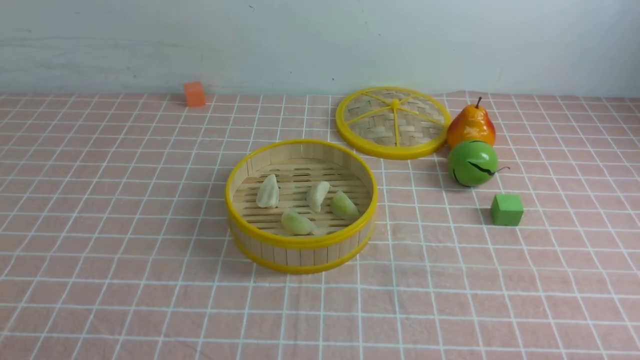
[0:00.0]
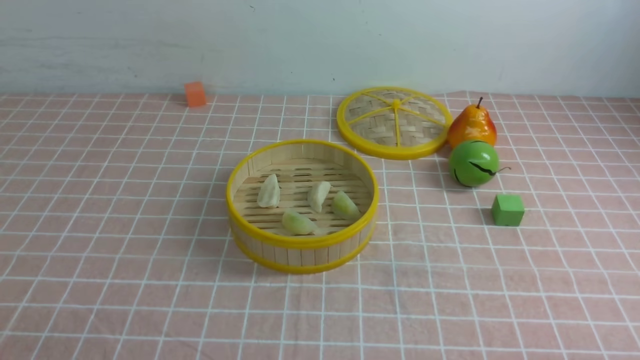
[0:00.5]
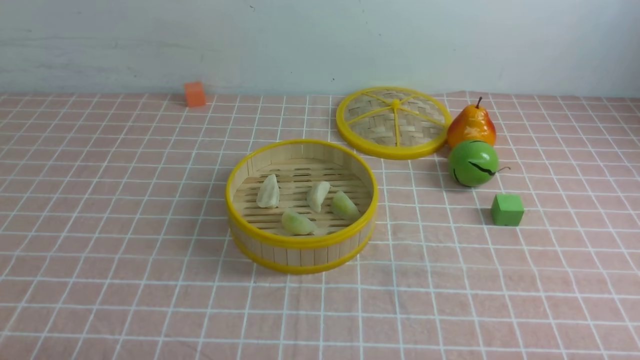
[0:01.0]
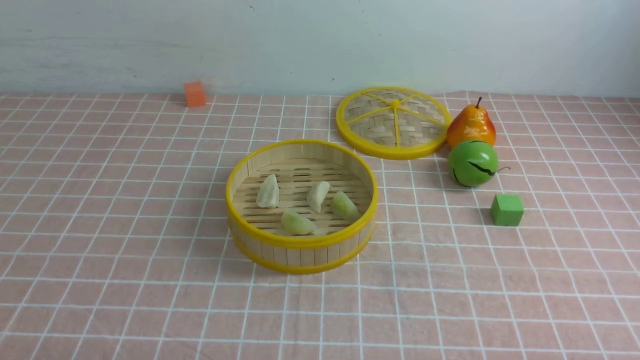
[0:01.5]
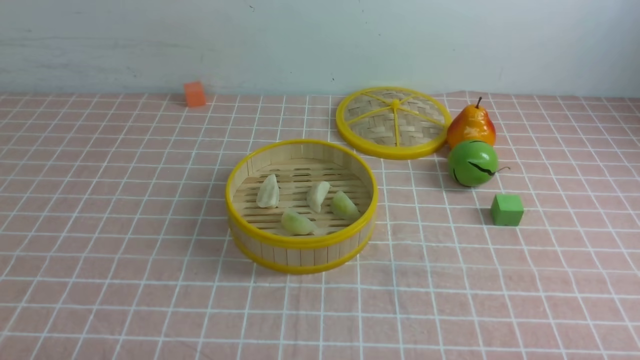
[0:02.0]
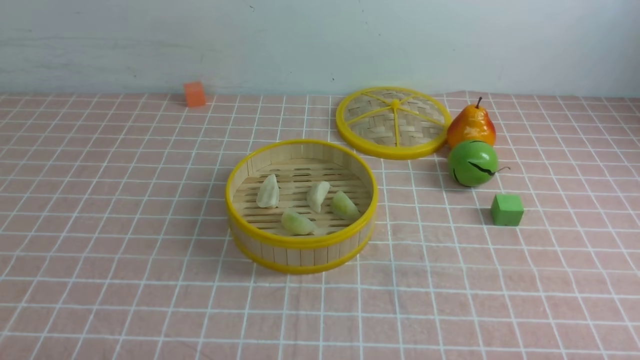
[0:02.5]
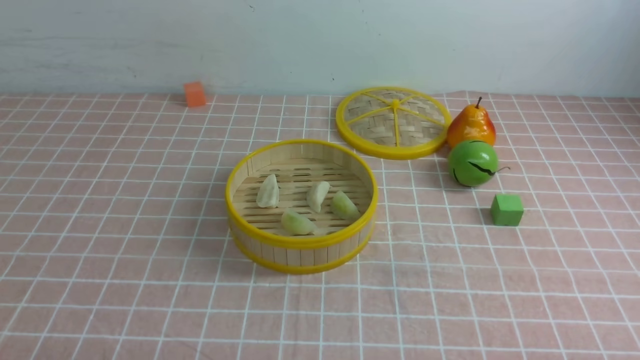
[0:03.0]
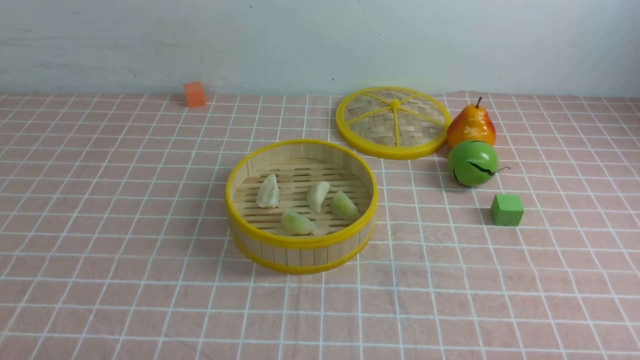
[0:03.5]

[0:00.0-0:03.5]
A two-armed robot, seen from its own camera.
Task of the whole recording: put the dumplings into the steamer on the table with the pink tablecloth.
0:02.0 to 0:03.5: The two grippers keep their place.

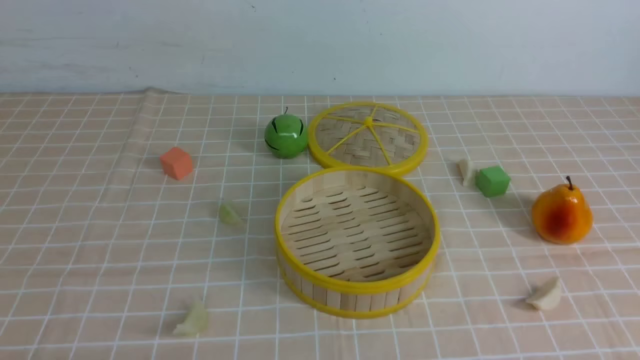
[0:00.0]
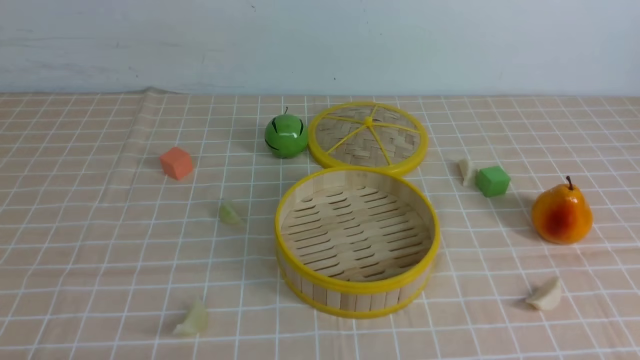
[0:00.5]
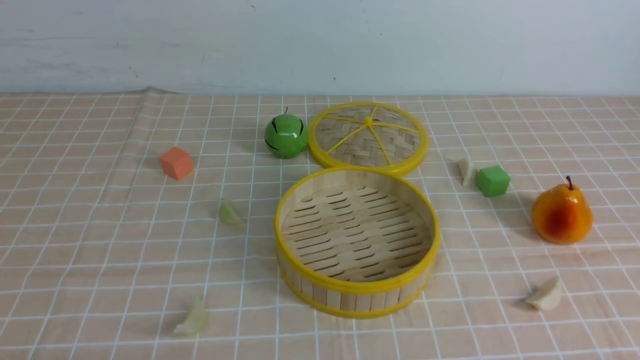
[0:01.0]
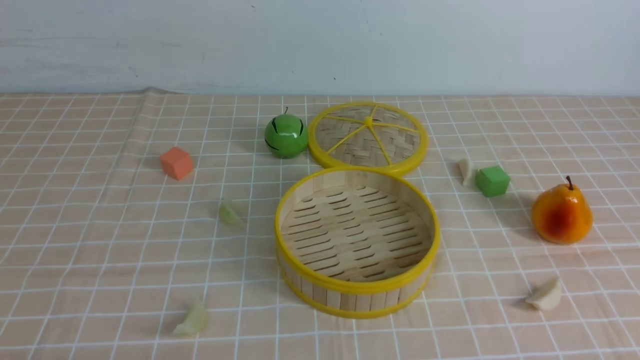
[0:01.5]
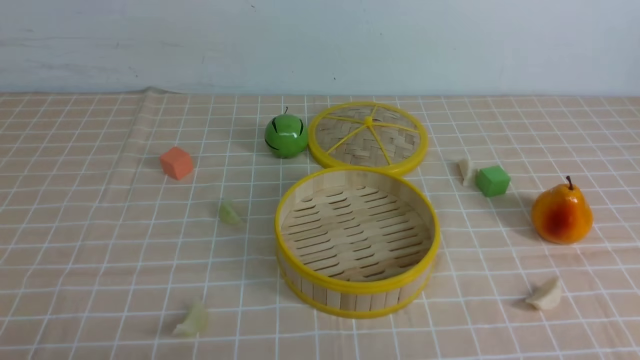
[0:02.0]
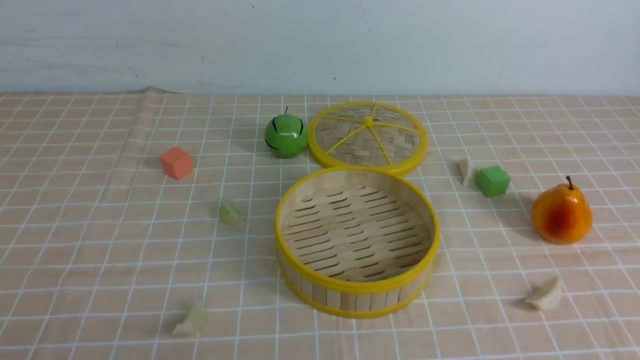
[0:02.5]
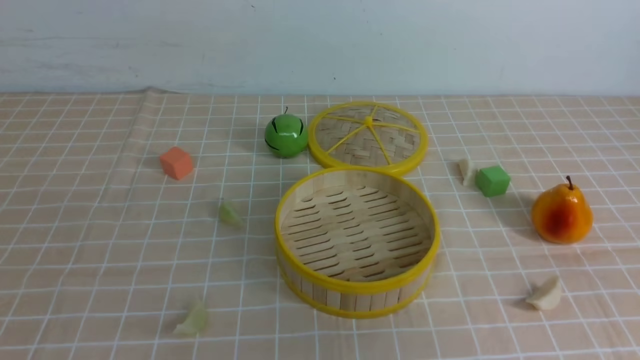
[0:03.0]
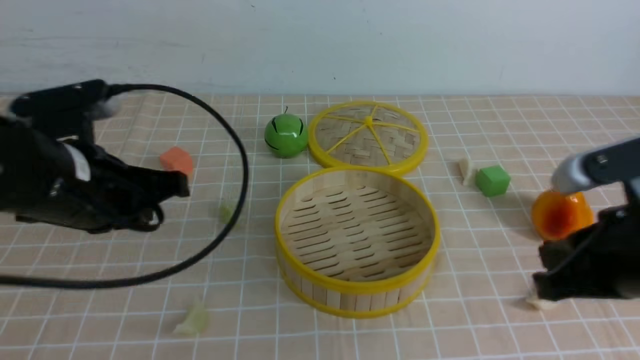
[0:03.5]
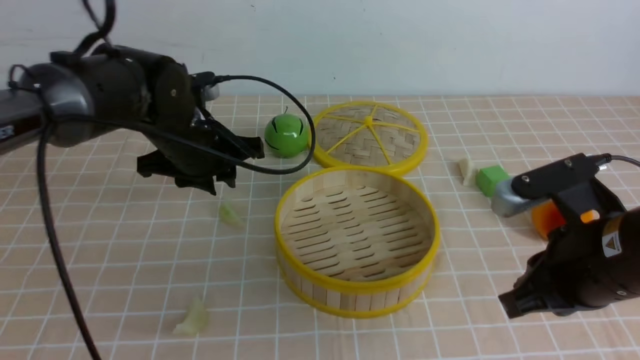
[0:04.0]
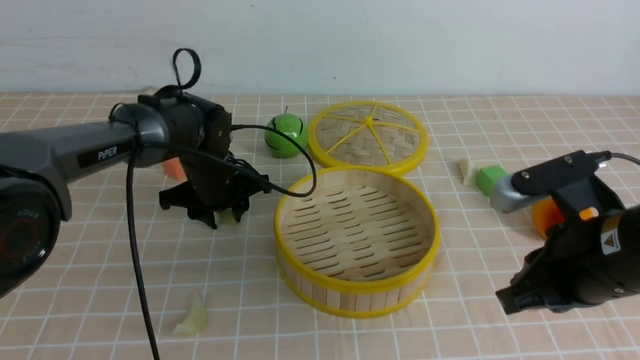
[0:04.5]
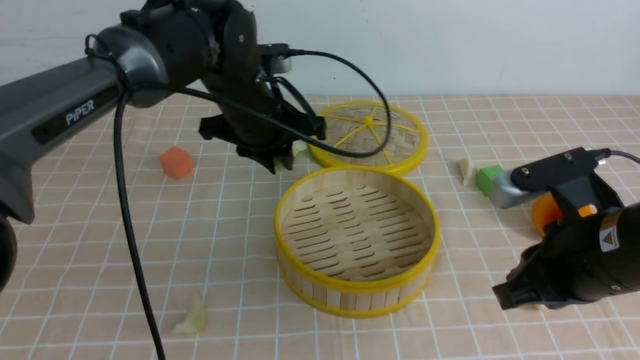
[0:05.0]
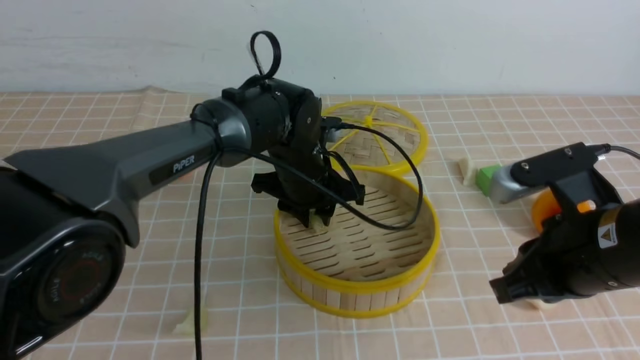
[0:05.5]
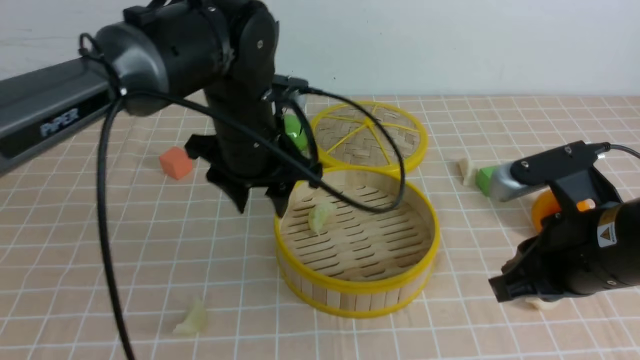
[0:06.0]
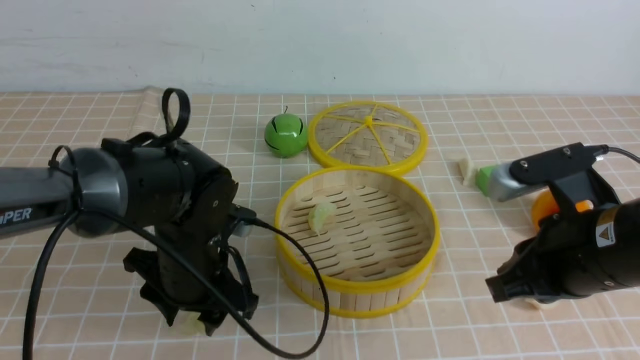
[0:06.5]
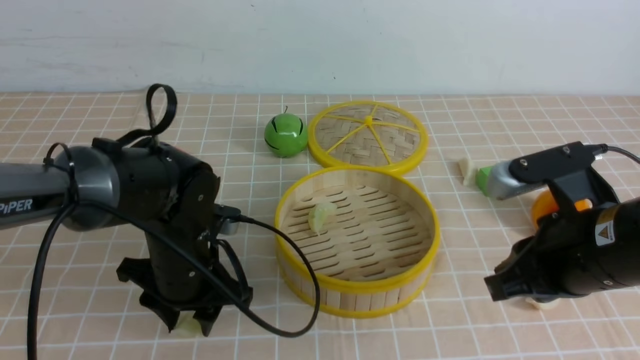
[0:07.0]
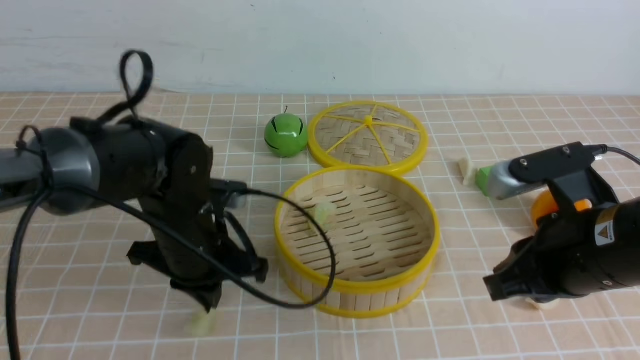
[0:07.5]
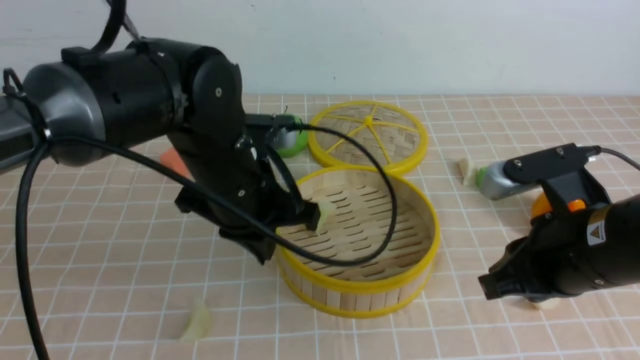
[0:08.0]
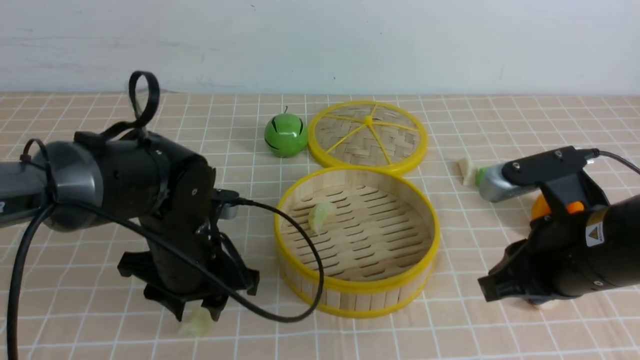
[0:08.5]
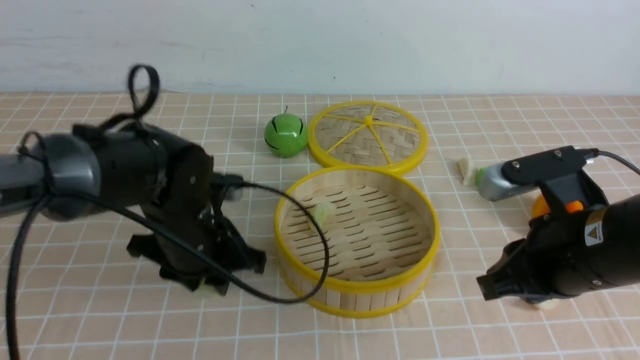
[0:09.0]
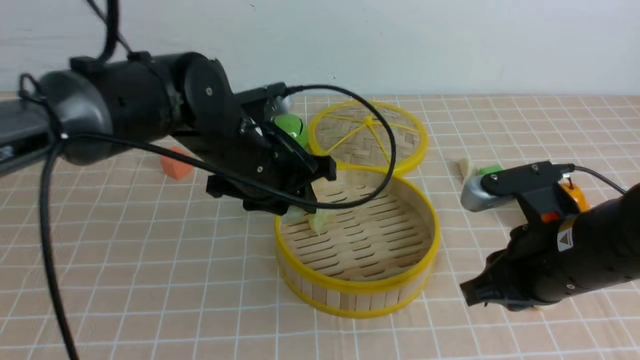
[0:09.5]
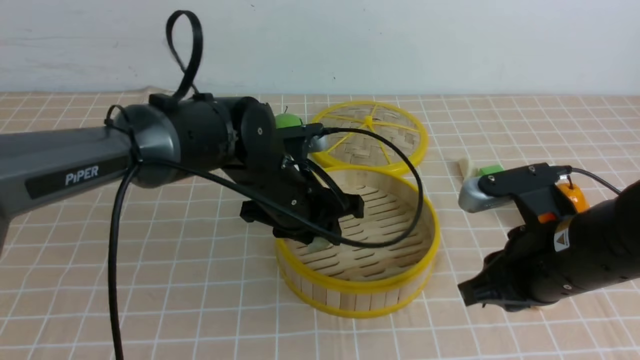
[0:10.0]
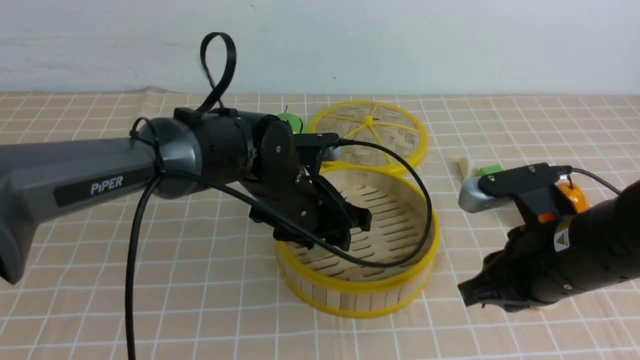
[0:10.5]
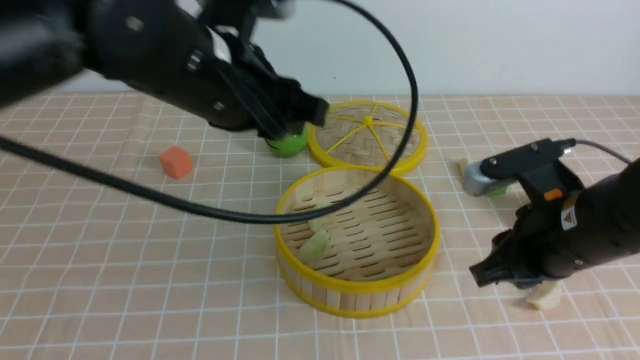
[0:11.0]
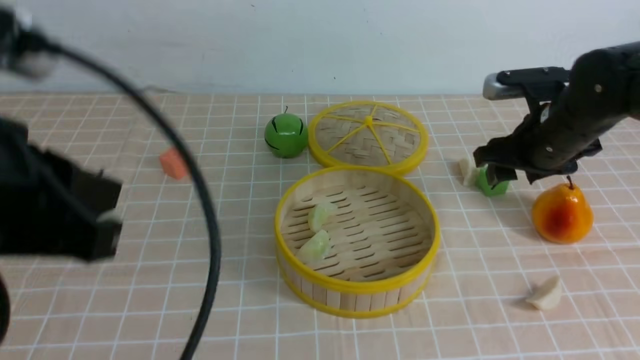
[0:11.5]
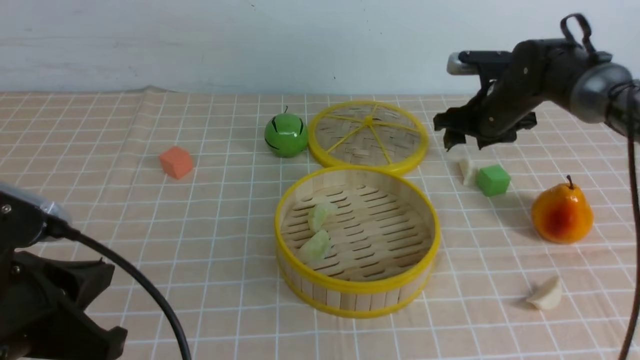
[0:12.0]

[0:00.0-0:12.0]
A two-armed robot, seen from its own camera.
Task of the whole recording: put the dumplings into the steamer on the table with the brown tablecloth.
Step, 0:00.0 to 0:04.5: use the left arm to grab a dumpling.
Step, 0:05.0 to 0:05.5: use the left arm to put the dumpling into the steamer.
Step, 0:06.0 to 0:08.5: use the left arm to grab a dumpling.
Step, 0:09.0 to 0:10.5: use the left arm to put the dumpling into the steamer.
0:02.0 to 0:04.0: The right gripper travels forward and to the left by about 20 cm, and closes its fingers; the left gripper goes some 35 cm forward, and closes, then reopens.
0:04.0 to 0:06.0: The left gripper is displaced to the right by some 5 cm, and opens.
0:06.0 to 0:08.0: The left gripper travels downward and back again, about 10 cm each way, and closes.
0:08.0 to 0:10.0: The left gripper moves approximately 5 cm, and opens.
0:10.0 to 0:12.0: The left gripper heads backward and to the left, covering roughly 30 cm, and closes its fingers, while the right gripper goes some 30 cm forward, and opens its fingers.

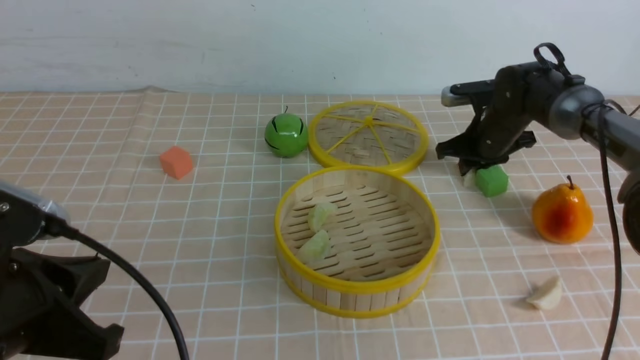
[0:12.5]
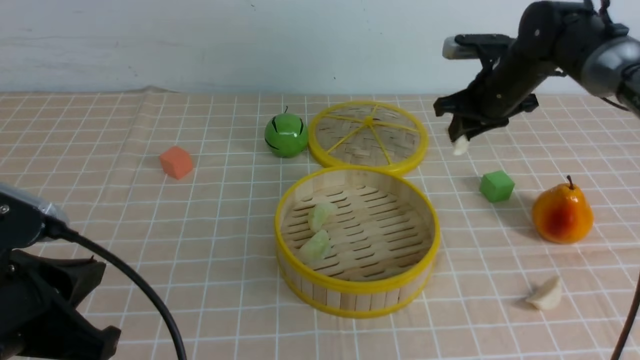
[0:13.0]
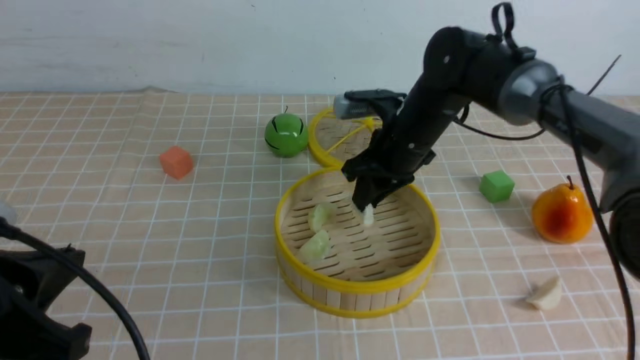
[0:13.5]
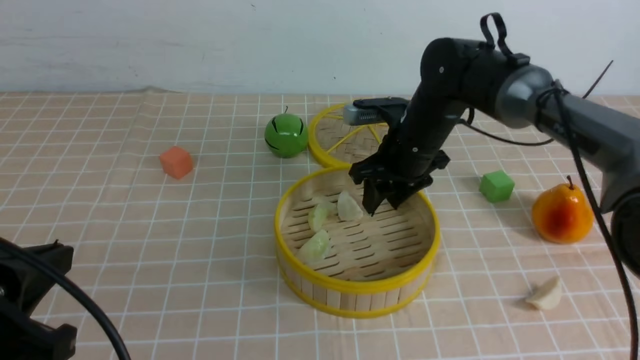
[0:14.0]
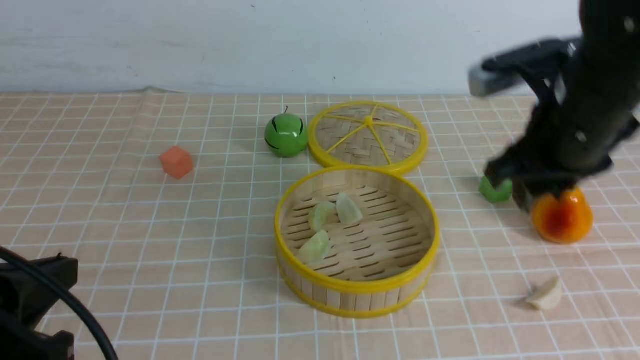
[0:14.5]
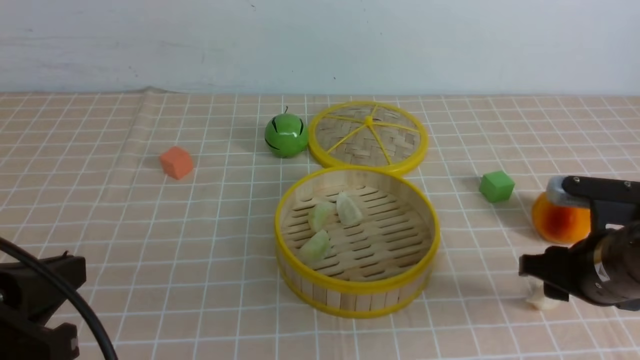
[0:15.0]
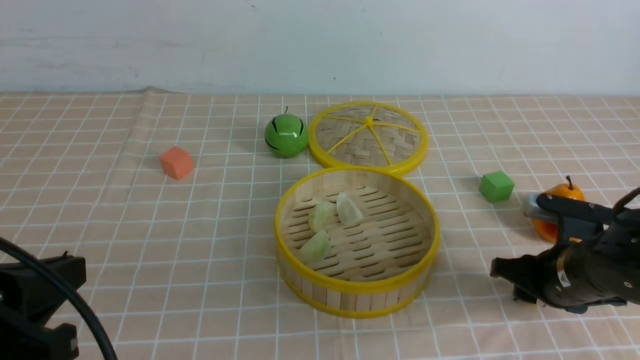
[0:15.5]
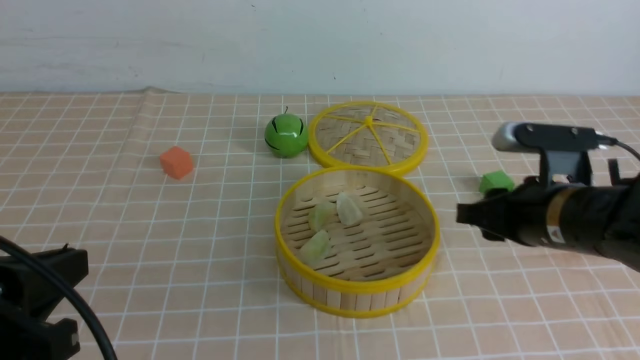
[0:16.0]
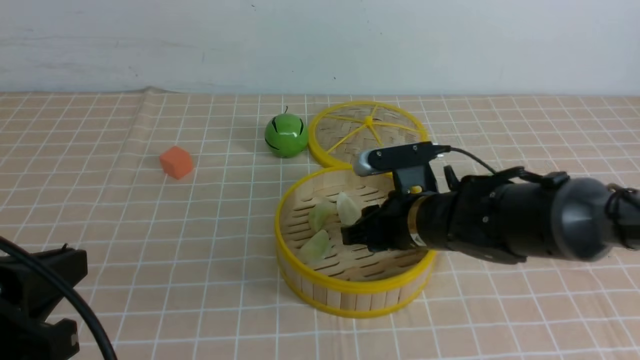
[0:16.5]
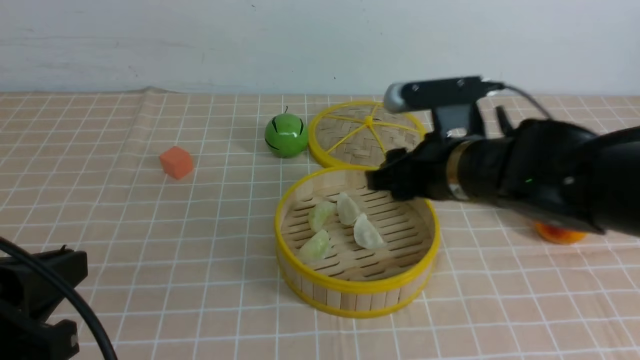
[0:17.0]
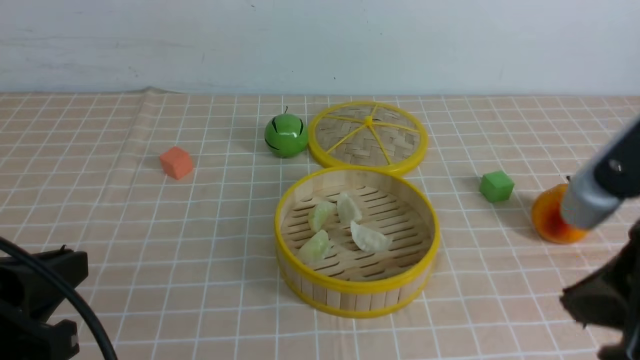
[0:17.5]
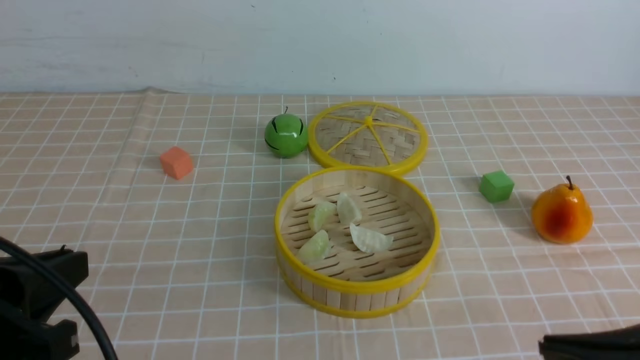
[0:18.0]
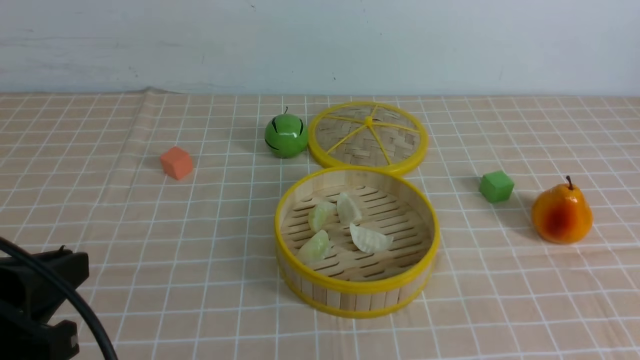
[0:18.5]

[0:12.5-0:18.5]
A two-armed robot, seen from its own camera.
Task of the whole recording: put the dumplings into the steamer on the table with the brown tablecloth.
Step, 0:13.0 to 0:14.0: use the right arm to put the dumpling into the steamer.
Step, 0:14.5 to 0:15.0: use the right arm to grab a dumpling.
Step, 0:15.5 to 0:17.0: use the right arm to put the dumpling into the steamer.
0:12.5 to 0:14.5: The right gripper is displaced backward and upward by approximately 25 cm.
0:14.5 to 0:16.5: The right gripper heads downward and to the left, covering approximately 15 cm.
0:16.5 to 0:18.5: The right gripper moves backward and to the right, about 30 cm, and closes up.
